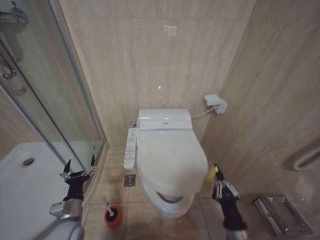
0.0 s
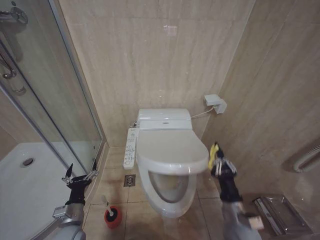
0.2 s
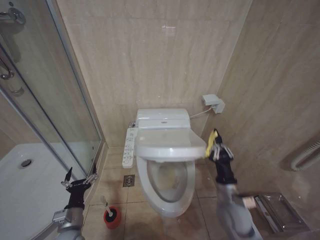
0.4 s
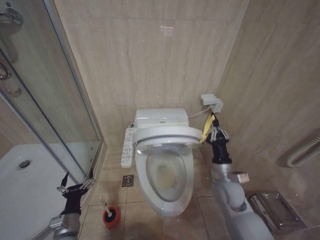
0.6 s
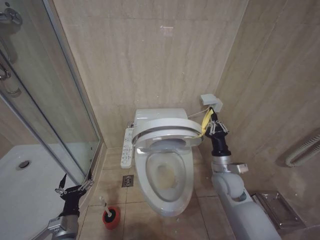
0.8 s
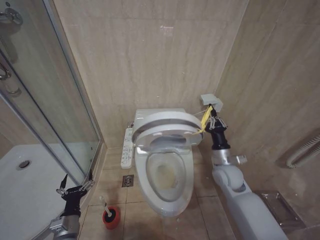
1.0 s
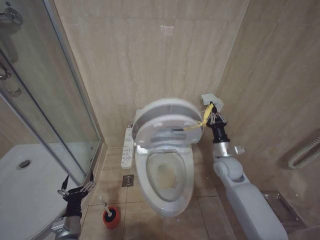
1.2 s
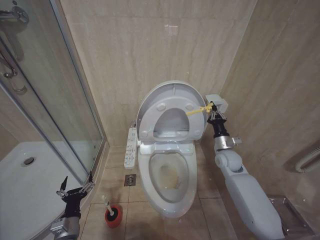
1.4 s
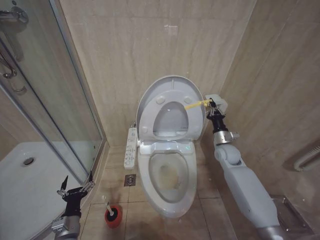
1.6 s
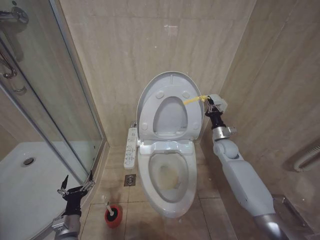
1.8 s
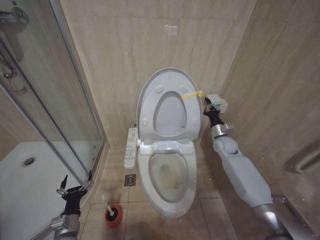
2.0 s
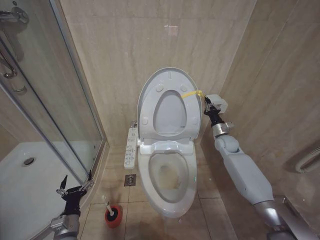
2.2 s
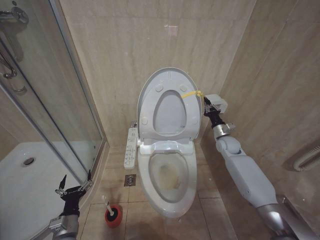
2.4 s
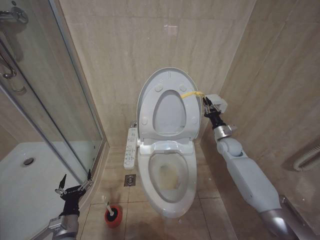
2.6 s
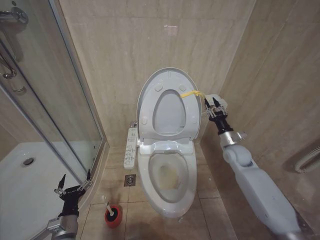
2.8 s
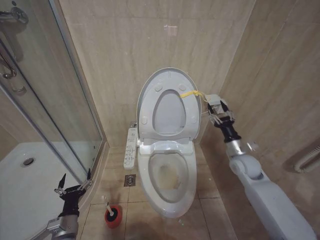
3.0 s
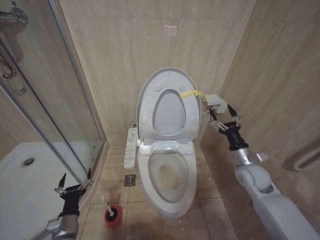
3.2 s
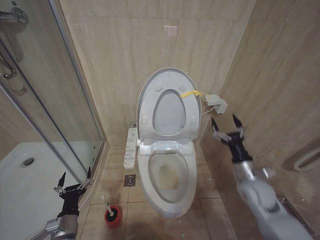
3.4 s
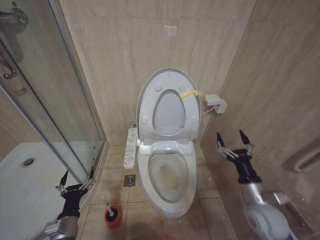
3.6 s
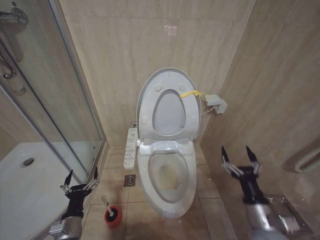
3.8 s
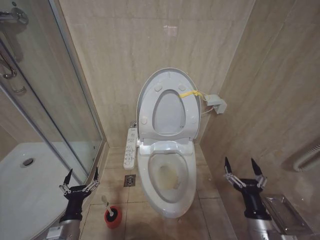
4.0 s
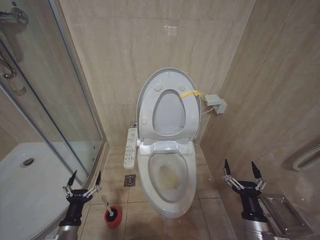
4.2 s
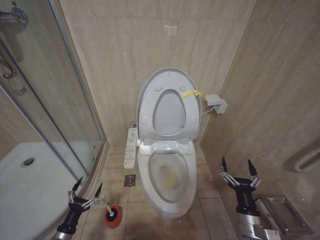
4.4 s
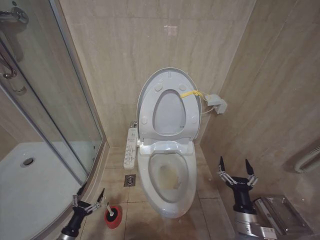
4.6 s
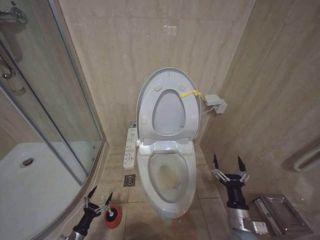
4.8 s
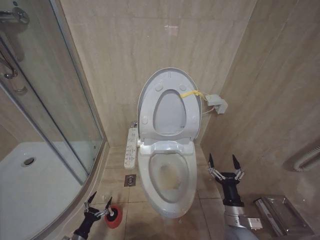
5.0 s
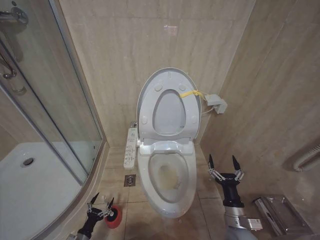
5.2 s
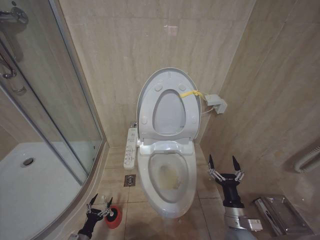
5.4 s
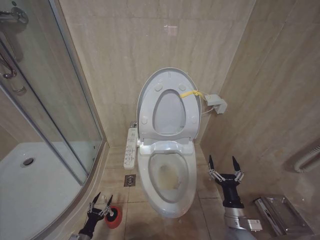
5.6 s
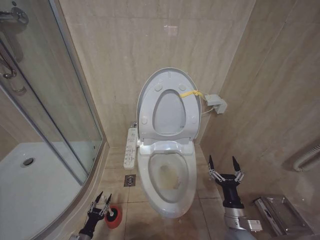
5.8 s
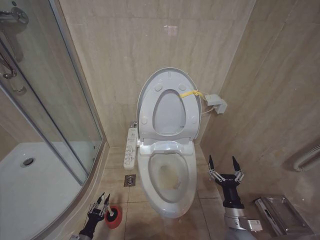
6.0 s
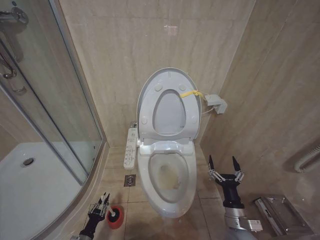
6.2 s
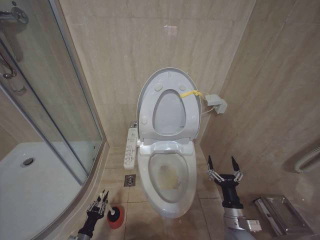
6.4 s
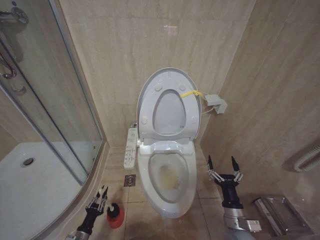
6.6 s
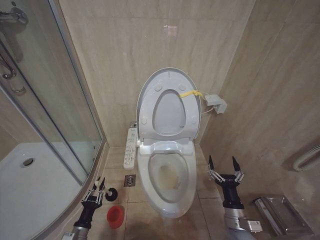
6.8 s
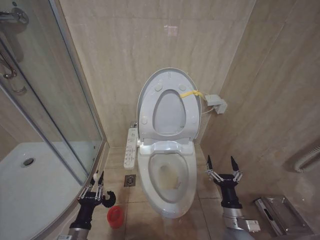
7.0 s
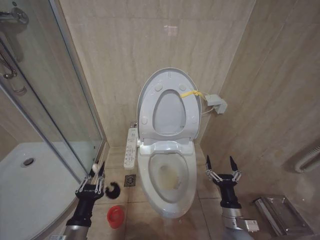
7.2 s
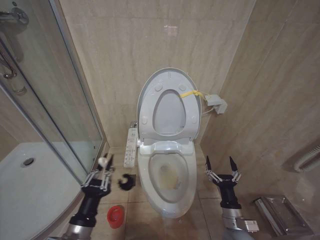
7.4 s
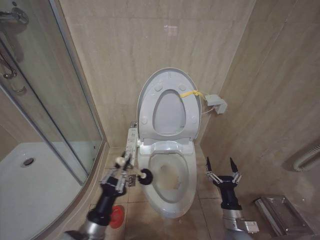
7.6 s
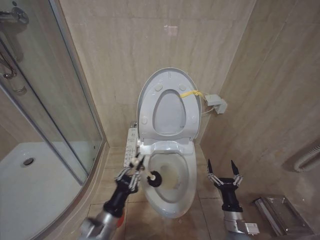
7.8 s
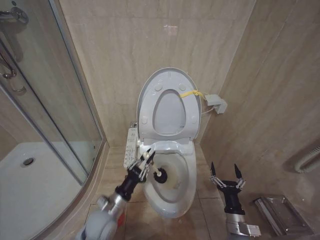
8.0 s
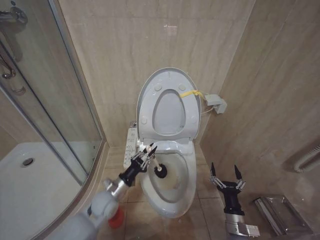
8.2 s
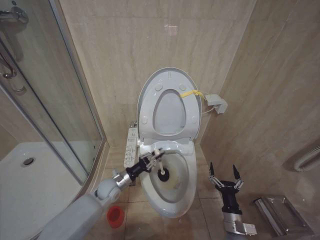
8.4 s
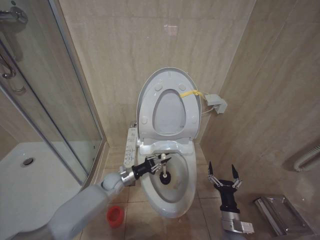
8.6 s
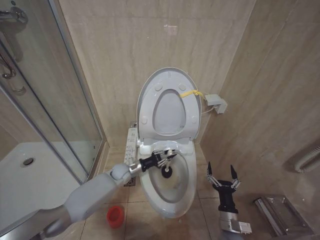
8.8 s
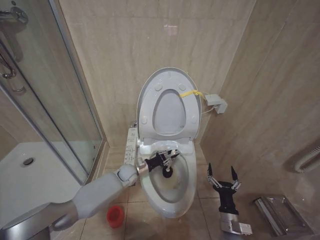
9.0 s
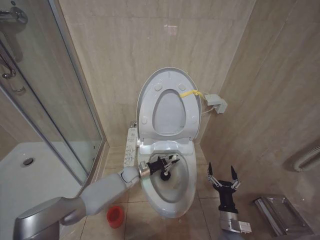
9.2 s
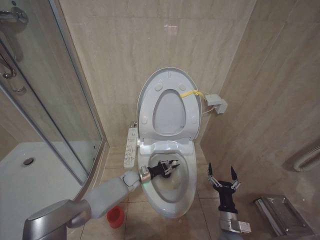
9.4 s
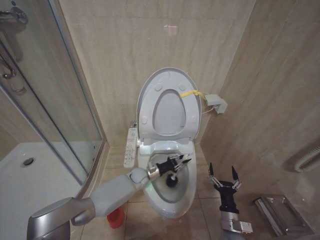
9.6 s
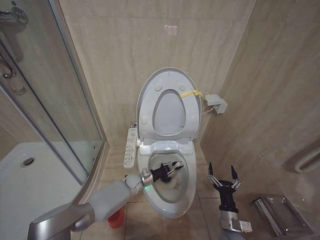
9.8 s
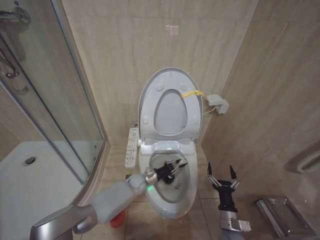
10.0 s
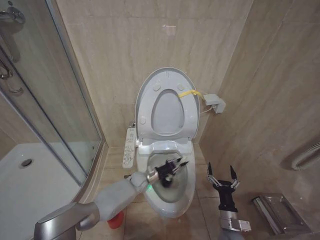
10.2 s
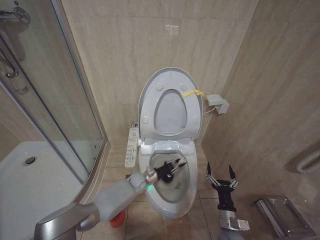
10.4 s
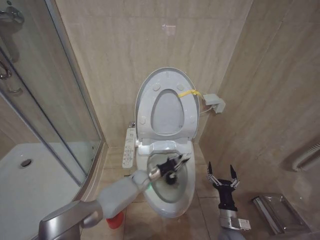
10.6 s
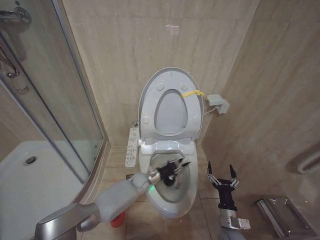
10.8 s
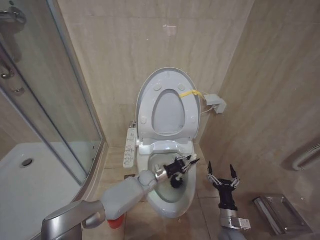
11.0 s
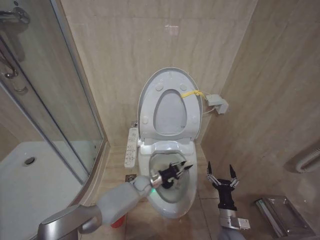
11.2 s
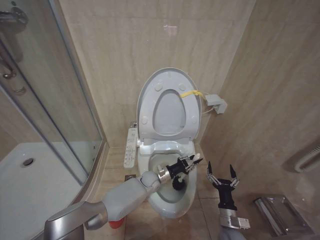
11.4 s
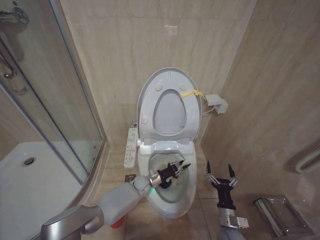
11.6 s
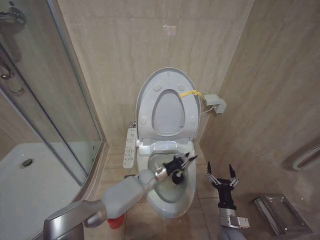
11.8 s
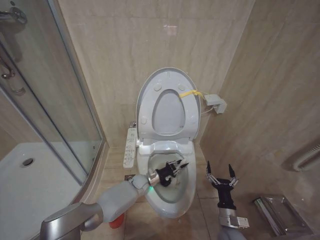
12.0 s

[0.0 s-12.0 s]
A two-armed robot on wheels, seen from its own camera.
Task of the whole recording: Open the toilet lid, clean the toilet bowl with a toilet brush, close the toilet lid, and flush.
0.0 to 1.6 s: The right gripper shifts approximately 30 cm forward. The left gripper heads downward, covering some 5 cm.
1.6 to 3.0 s: The right gripper moves approximately 5 cm, and opens.
3.0 to 4.4 s: The right gripper goes about 25 cm backward and downward, and opens its fingers. The left gripper travels downward by about 5 cm.
4.4 to 6.0 s: The left gripper goes roughly 15 cm downward, and closes up.
6.0 to 7.6 s: The left gripper moves upward and to the right, about 35 cm.
7.6 to 9.0 s: The left gripper is displaced forward by roughly 30 cm.
9.0 to 10.4 s: The left gripper moves up and down over about 10 cm, changing direction 2 times.
10.4 to 12.0 s: The left gripper swings left and right, roughly 5 cm each way, with 2 reversals.

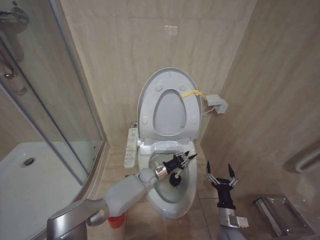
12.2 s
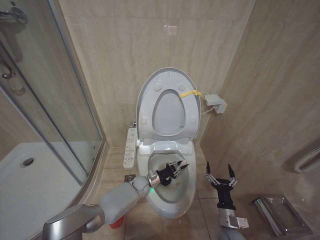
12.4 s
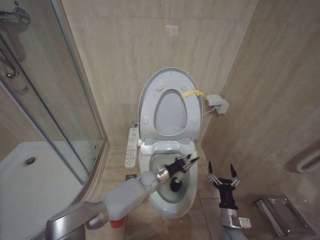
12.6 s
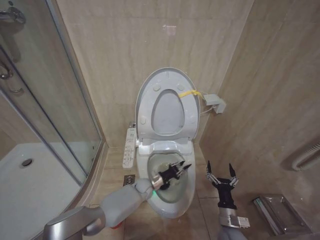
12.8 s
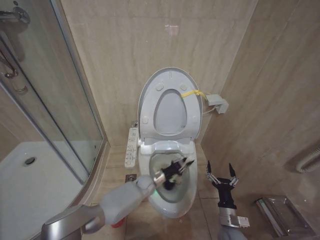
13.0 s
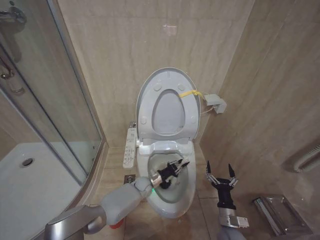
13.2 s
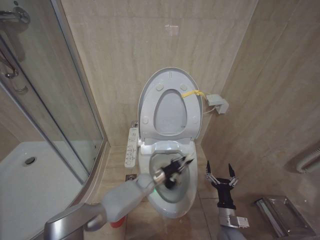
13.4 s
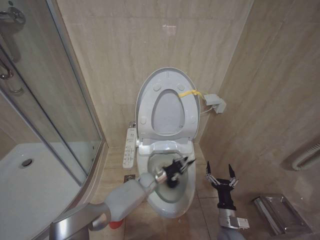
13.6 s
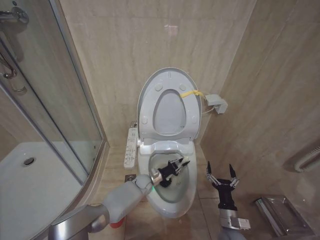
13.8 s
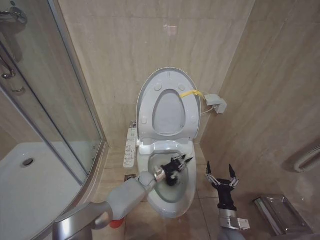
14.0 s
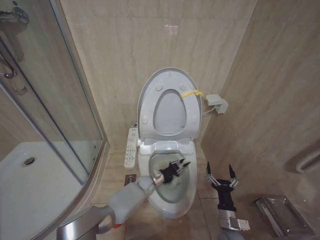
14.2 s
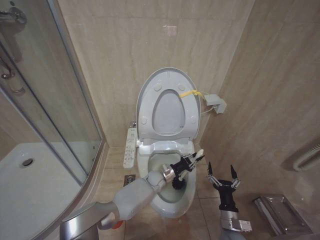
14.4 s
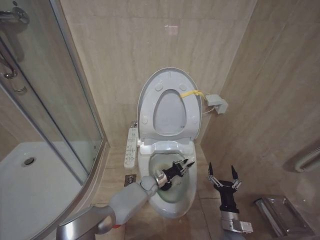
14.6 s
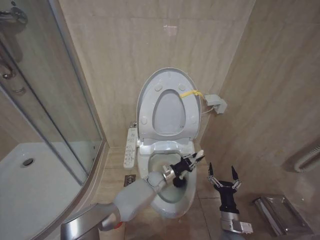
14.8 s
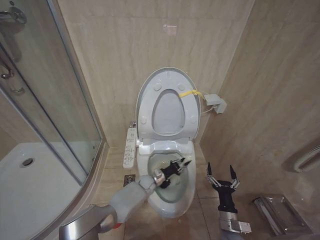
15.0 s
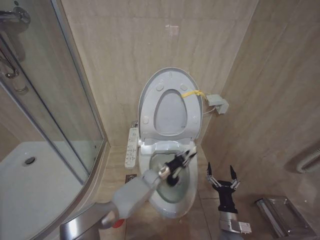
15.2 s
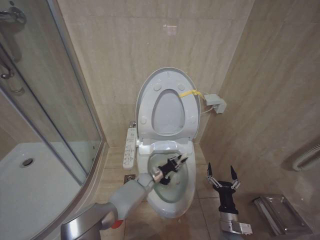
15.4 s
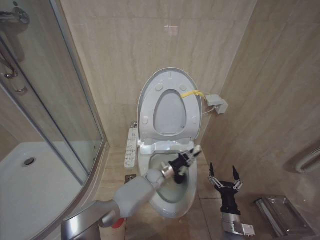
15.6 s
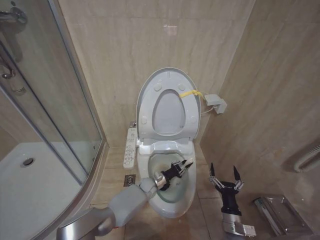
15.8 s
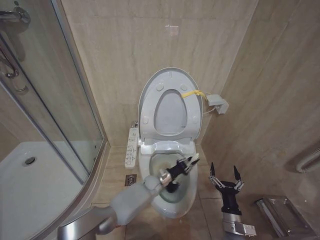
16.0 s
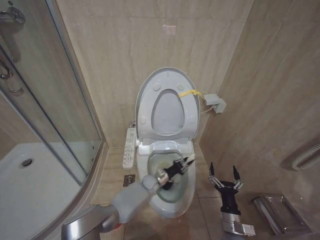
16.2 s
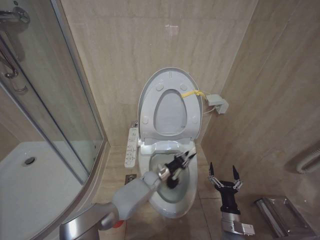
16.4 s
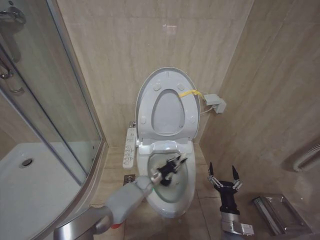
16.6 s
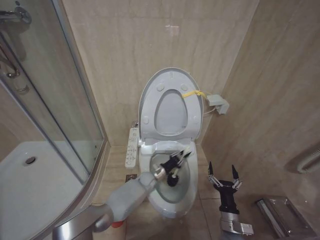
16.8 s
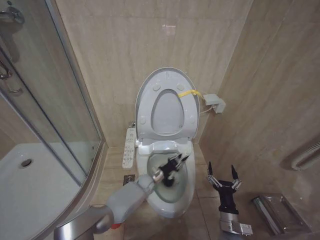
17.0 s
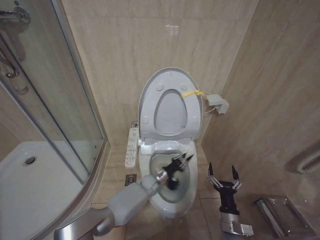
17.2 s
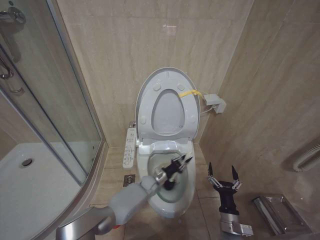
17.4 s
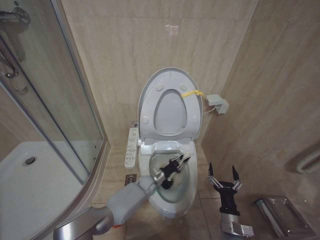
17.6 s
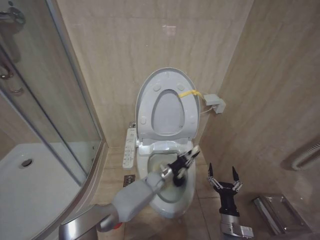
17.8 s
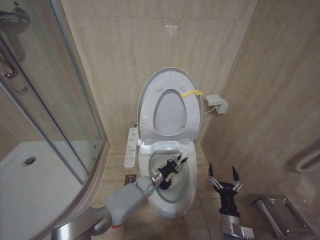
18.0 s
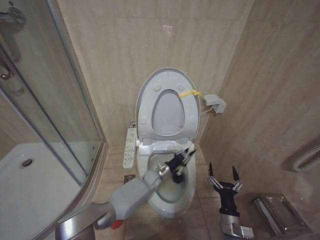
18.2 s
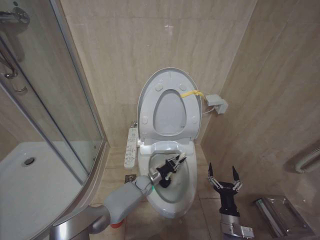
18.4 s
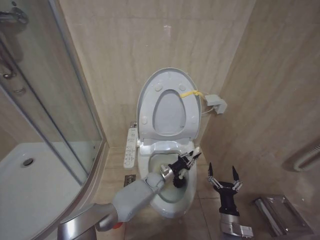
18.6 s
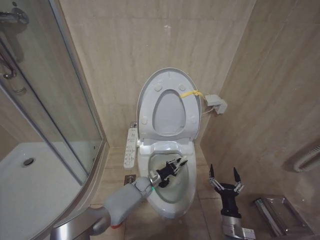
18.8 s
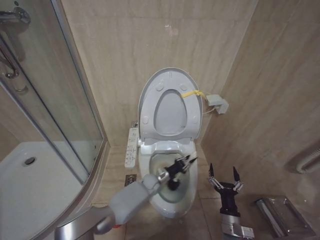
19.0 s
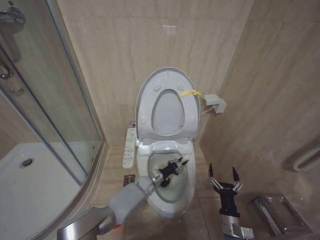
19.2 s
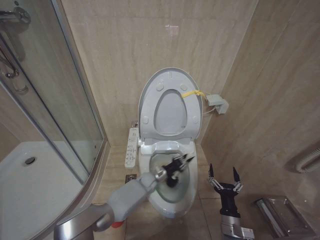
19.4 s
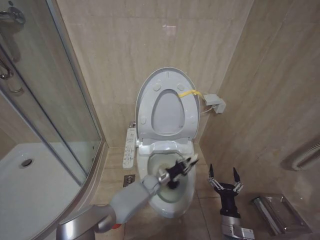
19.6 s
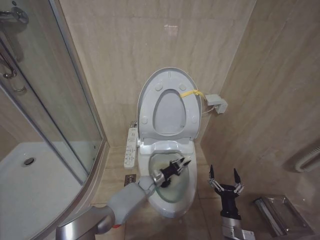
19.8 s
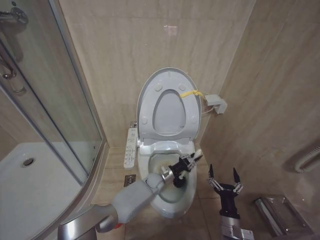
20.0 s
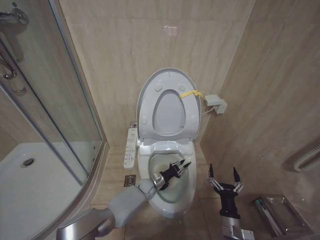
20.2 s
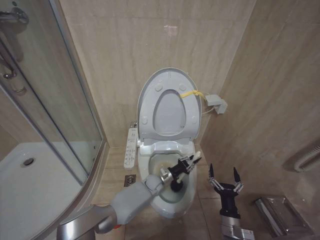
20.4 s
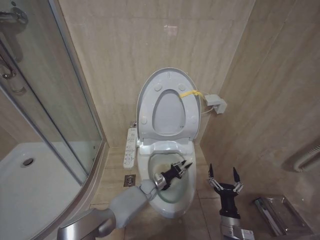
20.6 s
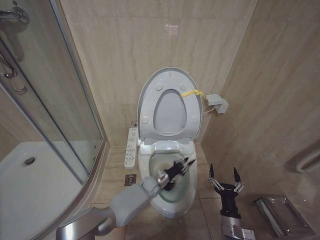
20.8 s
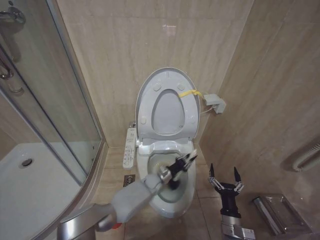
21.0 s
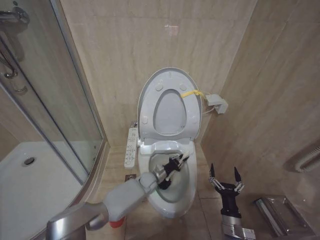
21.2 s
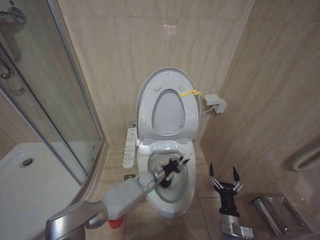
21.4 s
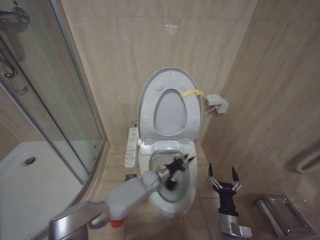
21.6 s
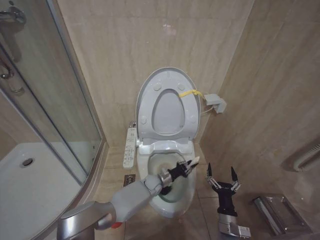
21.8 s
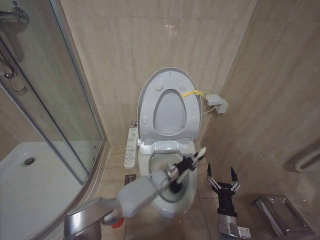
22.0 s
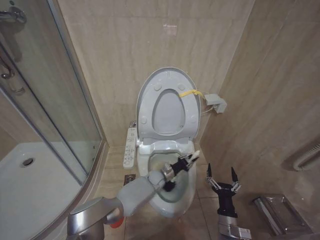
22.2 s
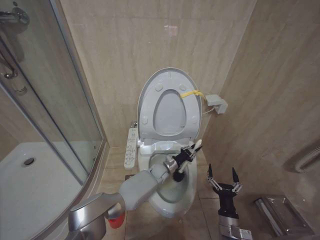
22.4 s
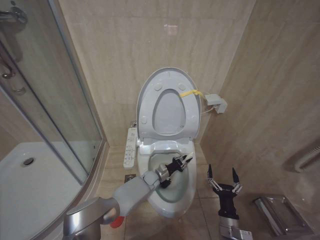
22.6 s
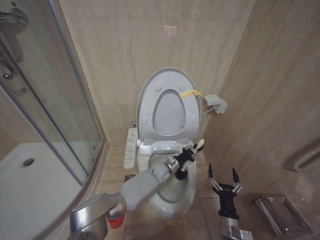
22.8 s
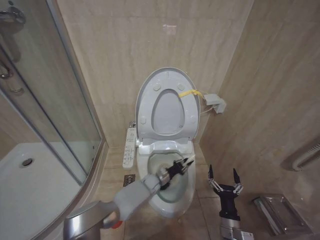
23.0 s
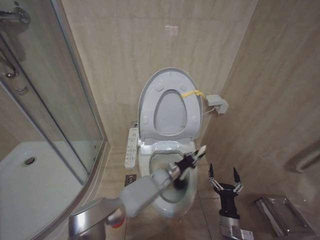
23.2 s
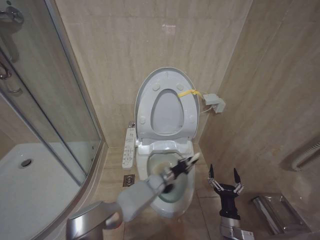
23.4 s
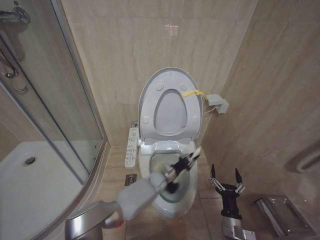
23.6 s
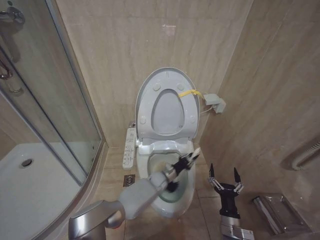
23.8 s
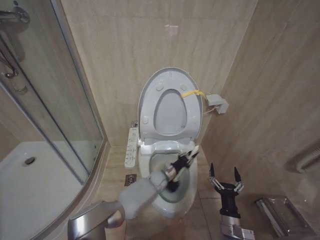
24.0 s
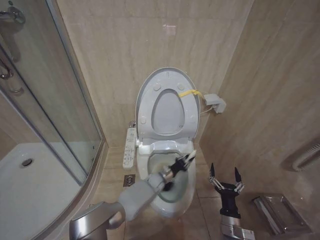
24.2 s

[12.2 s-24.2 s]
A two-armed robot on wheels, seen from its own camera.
Task of the whole recording: Open the toilet lid, clean the toilet bowl with a toilet brush, close the toilet lid, and flush.
12.2 to 13.8 s: The grippers stay close to where they were, moving slightly.
15.2 to 16.6 s: The grippers make only small movements.
16.6 to 18.2 s: The left gripper moves left and right over about 10 cm, changing direction 4 times.
18.2 to 19.8 s: The left gripper swings up and down, approximately 5 cm each way, with 2 reversals.
19.8 to 21.2 s: The left gripper ends up some 5 cm from where it was.
